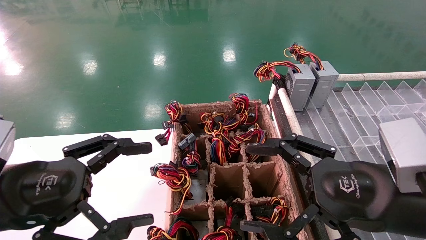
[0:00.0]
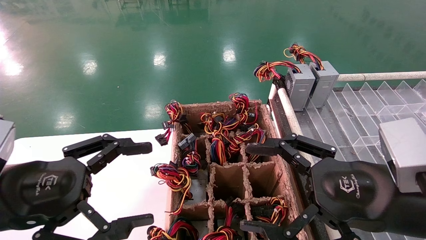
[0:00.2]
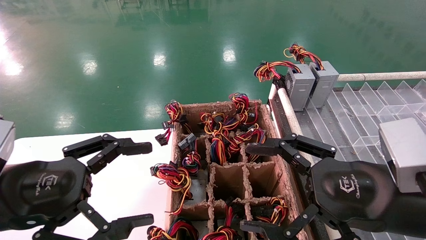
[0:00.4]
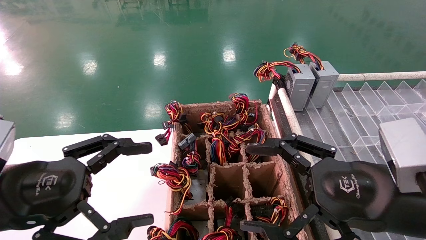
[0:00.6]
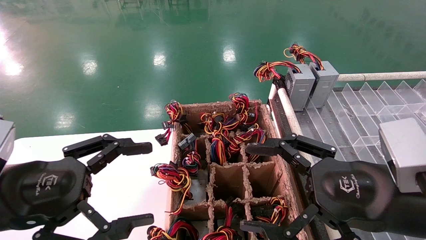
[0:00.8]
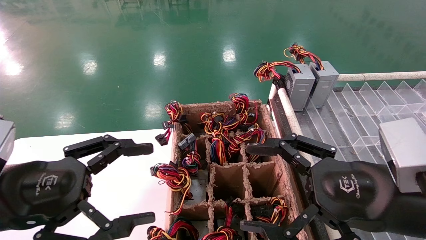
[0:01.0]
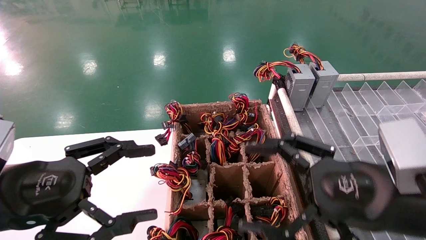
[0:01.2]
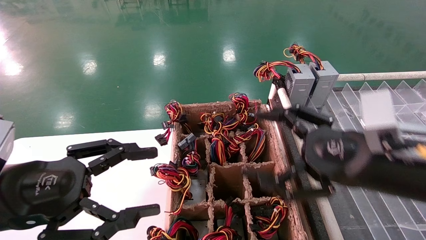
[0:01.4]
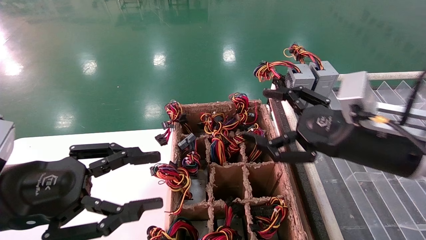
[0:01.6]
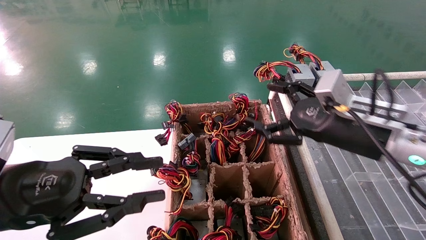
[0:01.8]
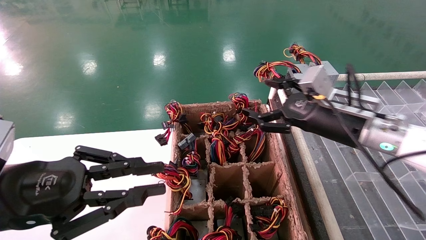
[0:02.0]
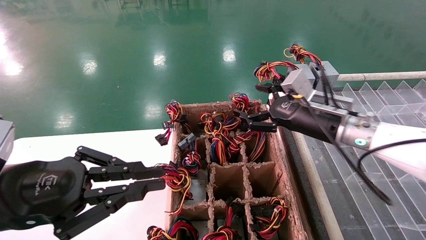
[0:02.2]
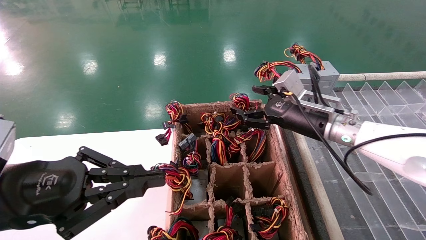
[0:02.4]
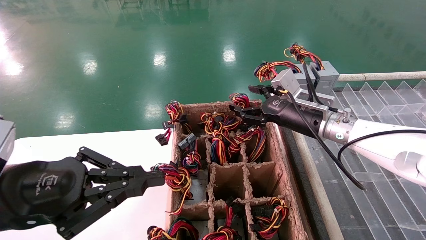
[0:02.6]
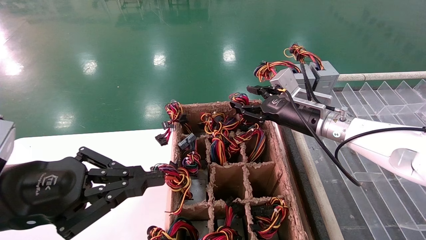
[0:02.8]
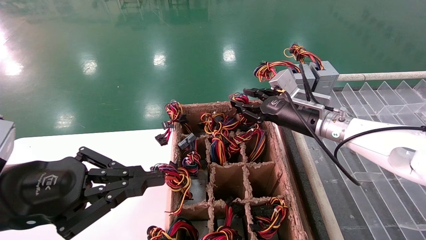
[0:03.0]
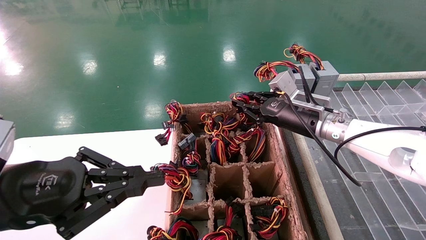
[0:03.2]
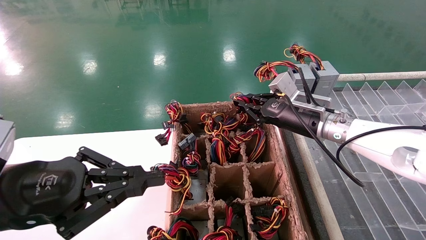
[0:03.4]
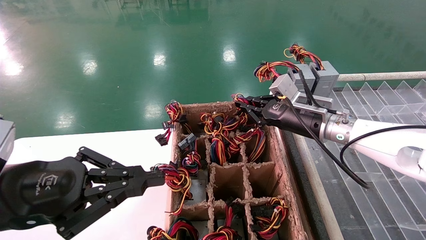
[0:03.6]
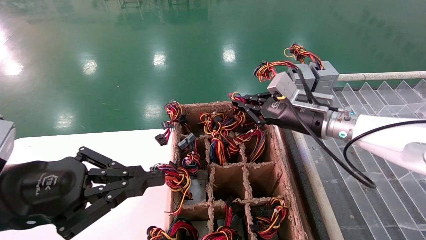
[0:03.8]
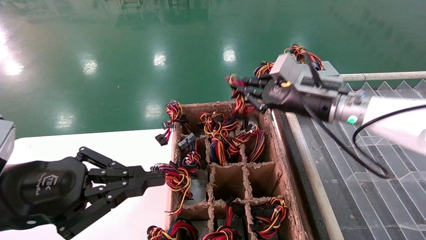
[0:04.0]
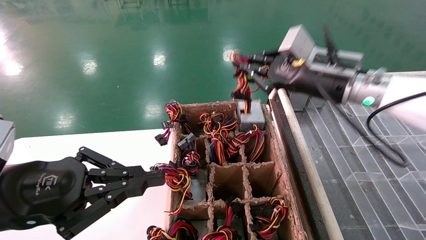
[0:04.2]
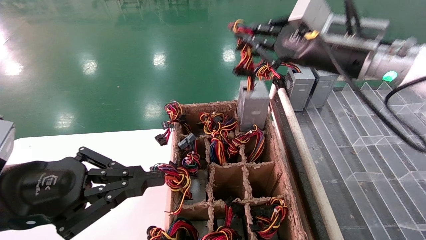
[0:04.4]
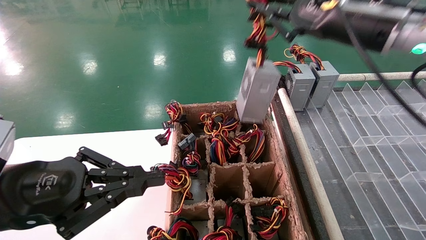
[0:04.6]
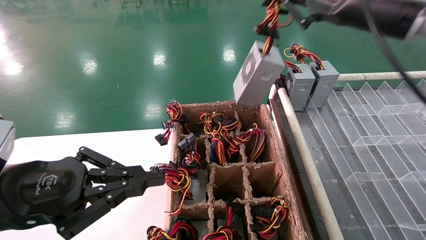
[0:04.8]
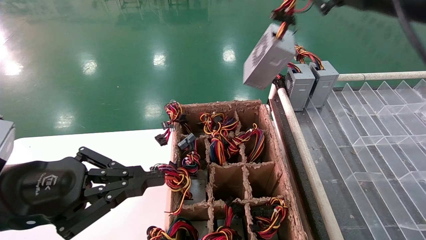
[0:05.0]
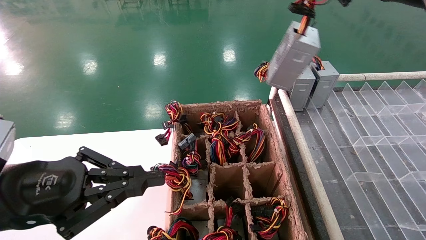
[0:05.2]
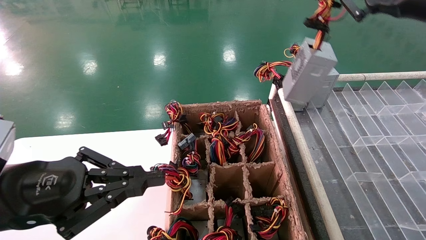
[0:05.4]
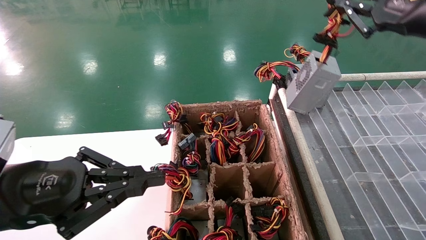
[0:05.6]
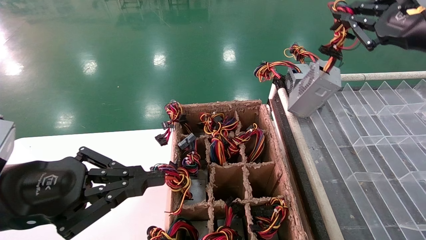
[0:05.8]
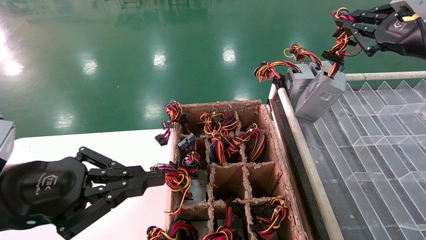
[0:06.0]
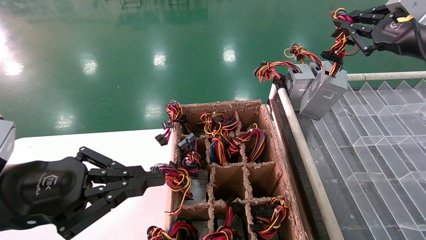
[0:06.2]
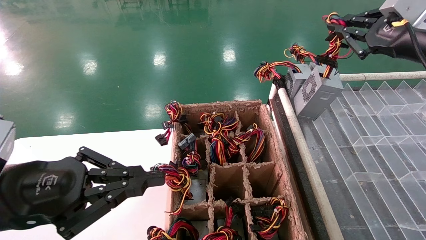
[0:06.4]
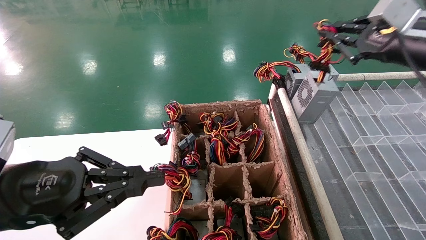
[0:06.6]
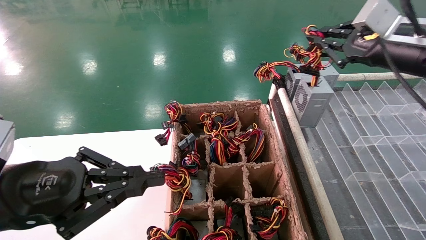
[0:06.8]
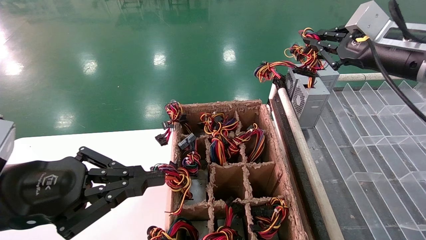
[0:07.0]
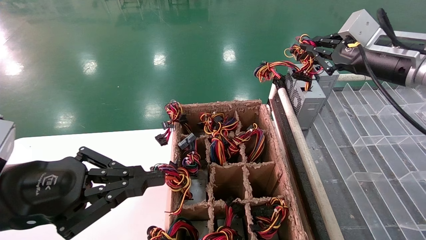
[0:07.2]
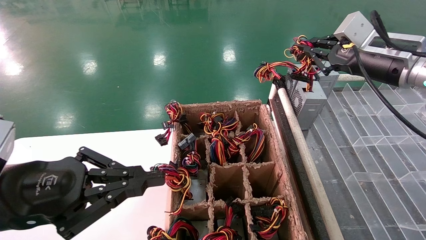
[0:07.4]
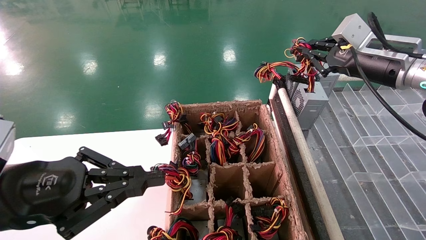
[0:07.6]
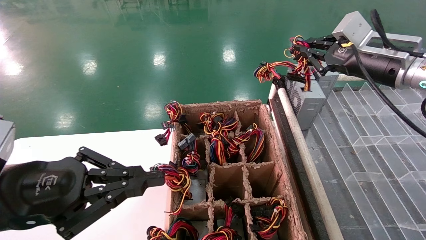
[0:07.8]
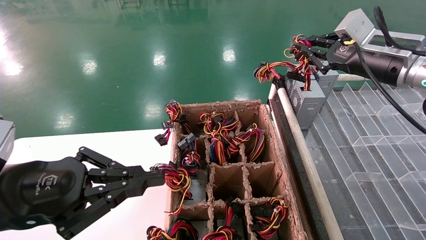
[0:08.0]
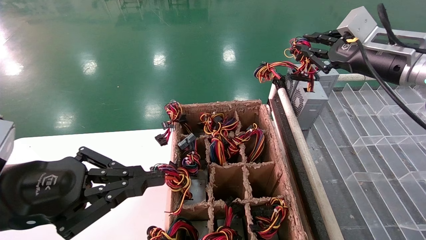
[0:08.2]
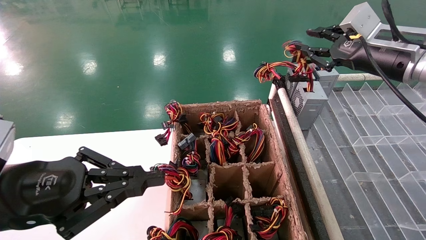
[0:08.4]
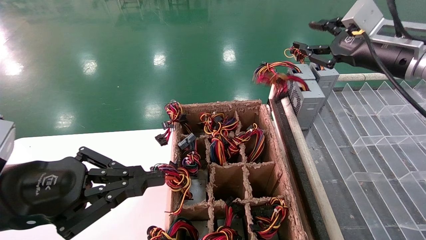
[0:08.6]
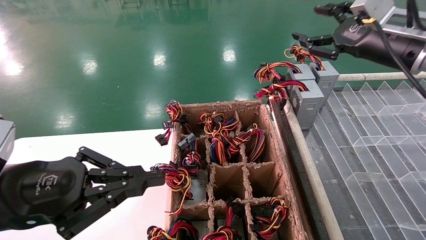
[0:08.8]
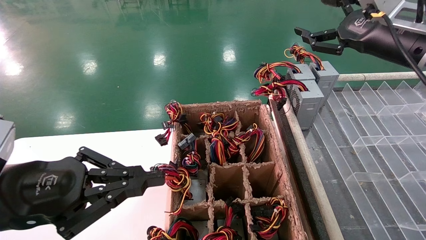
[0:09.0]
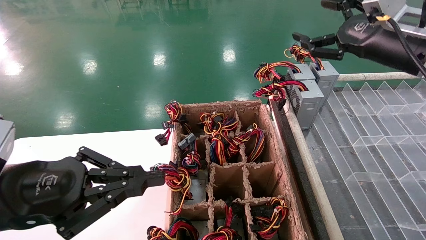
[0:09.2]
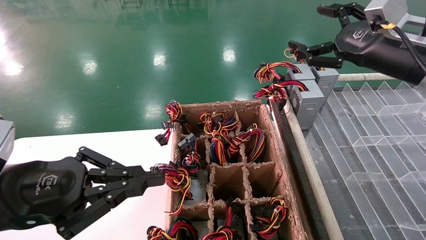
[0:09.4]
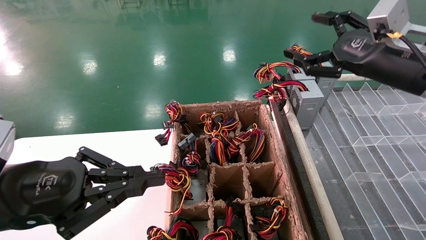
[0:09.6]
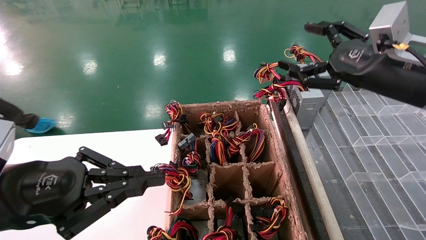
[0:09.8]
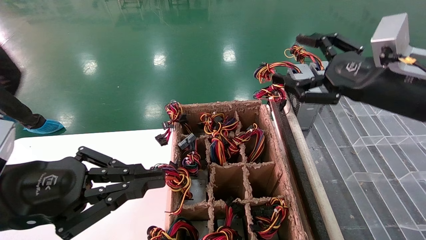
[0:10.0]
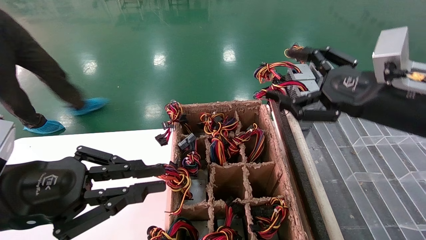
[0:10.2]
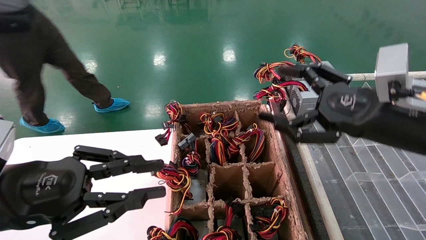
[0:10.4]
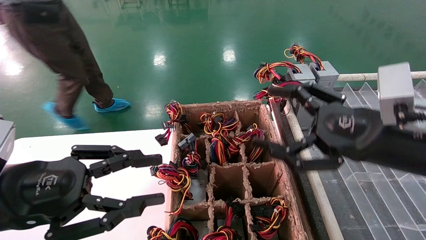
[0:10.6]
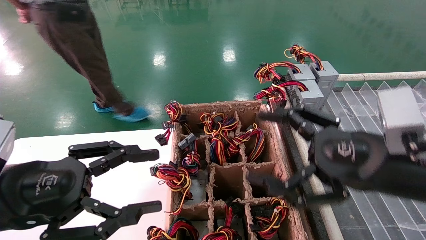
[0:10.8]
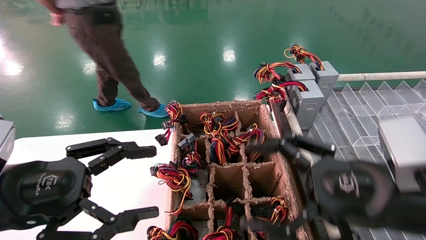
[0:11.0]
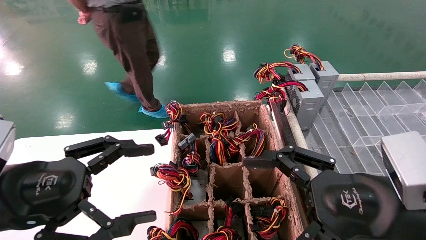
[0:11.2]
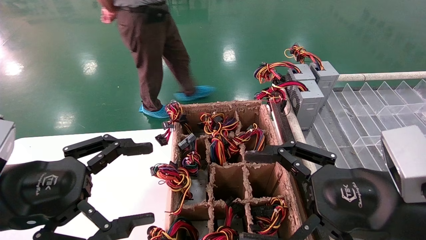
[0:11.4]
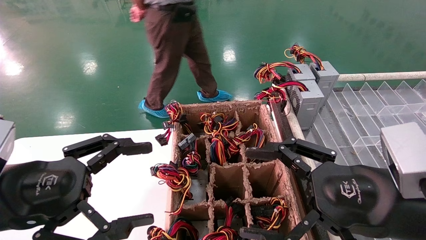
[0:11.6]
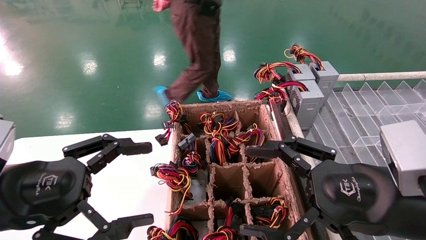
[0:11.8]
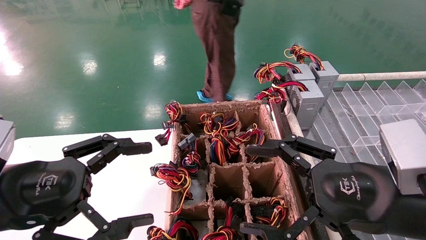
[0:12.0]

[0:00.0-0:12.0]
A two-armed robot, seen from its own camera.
Step, 0:01.6 to 0:03.6: Grab the main unit power supply from the containment box.
Step, 0:03.8 to 0:08.6: Place the main unit power supply in the designated area.
0:00.0 to 0:01.6: The left gripper closes its fingers. Meanwhile the right gripper moves forward, about 10 cm.
0:01.6 to 0:03.0: The left gripper closes. The right gripper shifts some 15 cm forward, and closes its fingers.
0:03.0 to 0:04.4: The right gripper moves upward and backward, some 15 cm, and closes.
0:04.4 to 0:06.0: The right gripper heads to the right, covering approximately 15 cm.
0:06.0 to 0:07.6: The right gripper goes about 5 cm forward.
0:07.6 to 0:09.0: The right gripper opens its fingers.
0:09.0 to 0:10.4: The right gripper shifts some 15 cm backward, downward and to the left.
0:10.4 to 0:12.0: The left gripper opens. The right gripper moves backward and downward, some 10 cm.

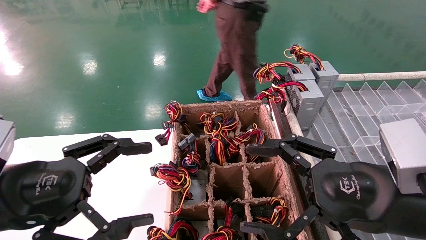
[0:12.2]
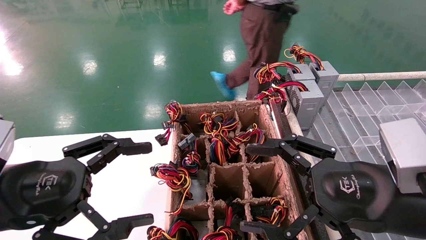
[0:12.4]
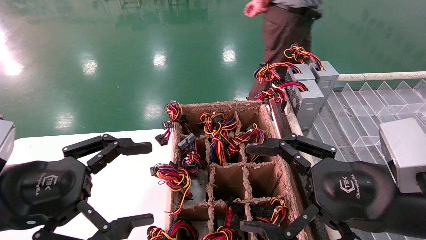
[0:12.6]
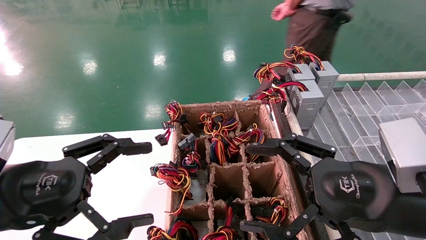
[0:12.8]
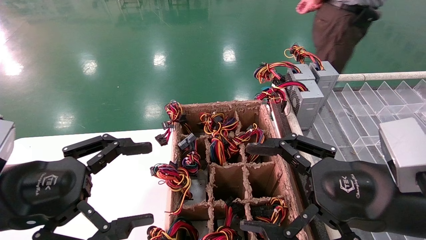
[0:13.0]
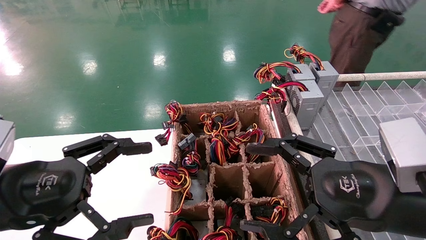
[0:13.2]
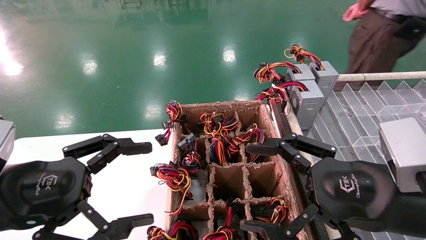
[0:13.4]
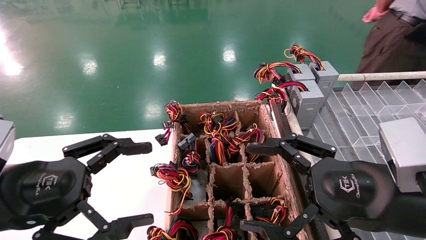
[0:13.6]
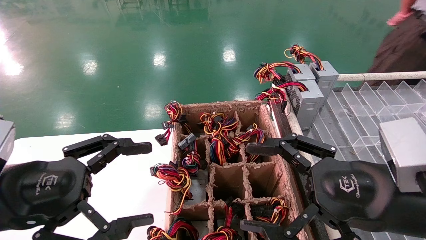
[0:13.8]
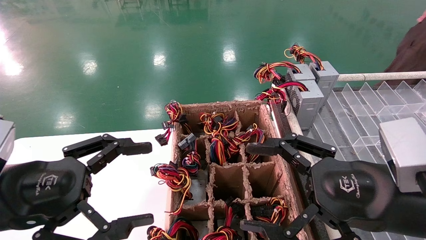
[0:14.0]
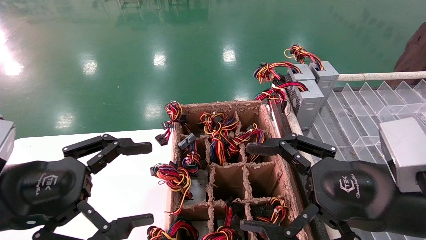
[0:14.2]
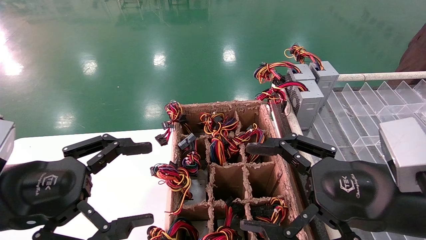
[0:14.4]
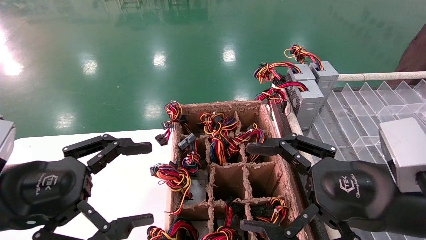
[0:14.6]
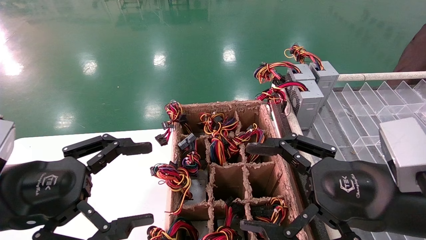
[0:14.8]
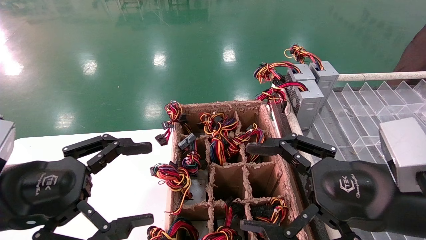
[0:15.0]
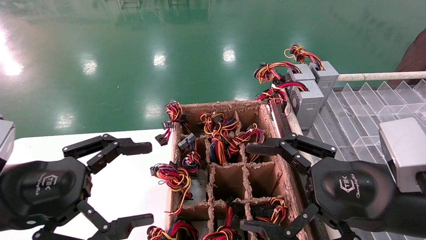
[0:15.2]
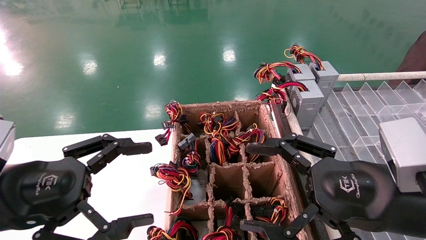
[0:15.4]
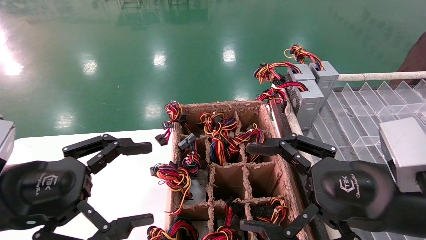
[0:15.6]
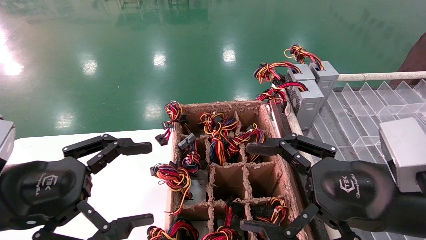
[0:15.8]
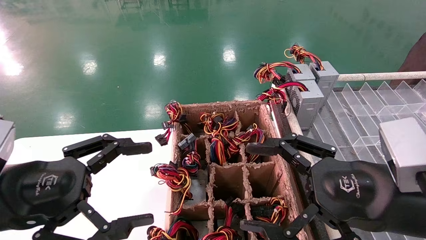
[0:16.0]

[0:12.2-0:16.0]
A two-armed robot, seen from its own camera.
0:12.2 to 0:16.0: Both grippers stay about where they are.
